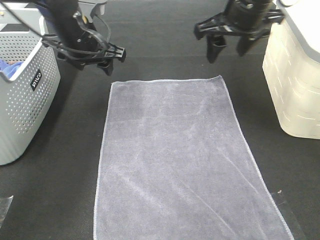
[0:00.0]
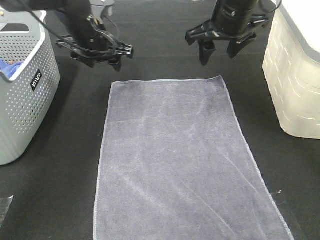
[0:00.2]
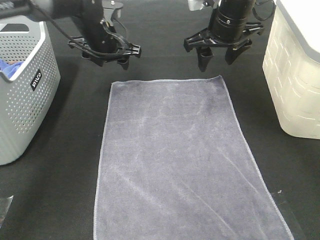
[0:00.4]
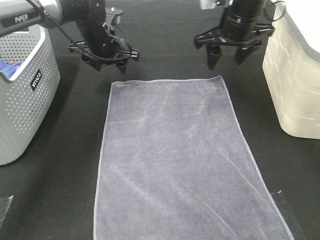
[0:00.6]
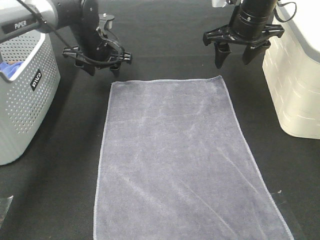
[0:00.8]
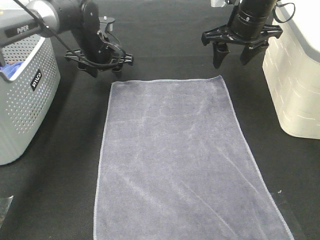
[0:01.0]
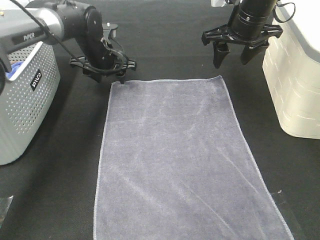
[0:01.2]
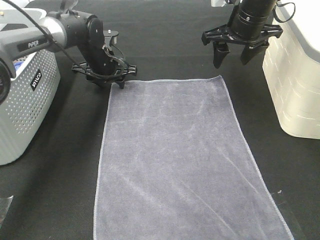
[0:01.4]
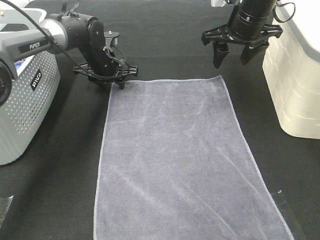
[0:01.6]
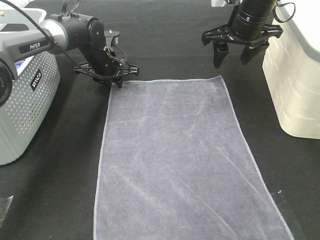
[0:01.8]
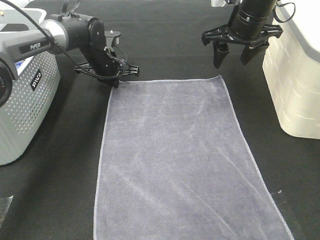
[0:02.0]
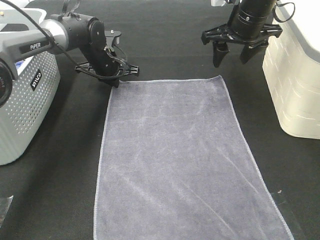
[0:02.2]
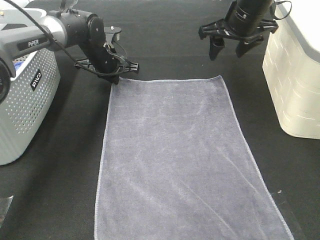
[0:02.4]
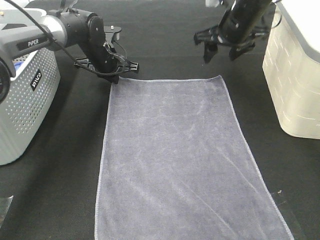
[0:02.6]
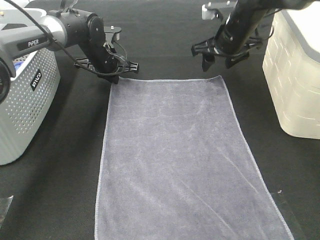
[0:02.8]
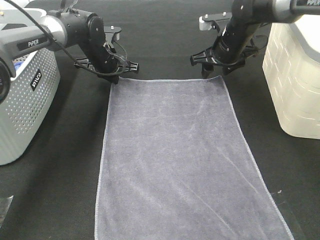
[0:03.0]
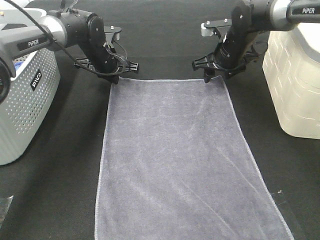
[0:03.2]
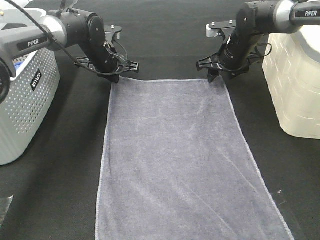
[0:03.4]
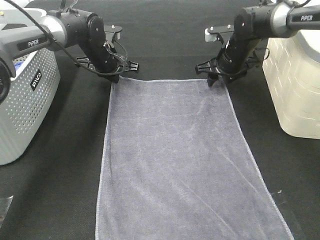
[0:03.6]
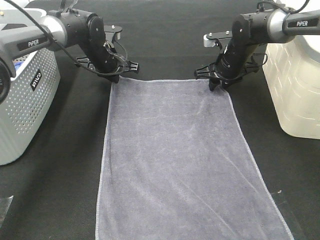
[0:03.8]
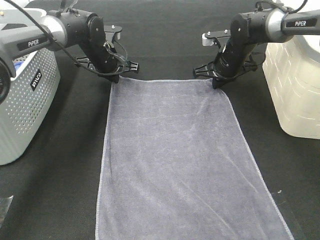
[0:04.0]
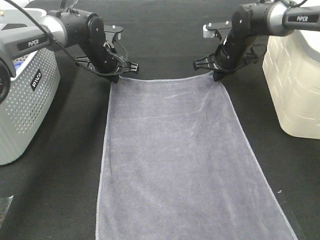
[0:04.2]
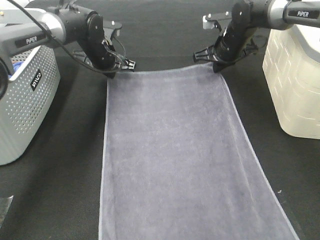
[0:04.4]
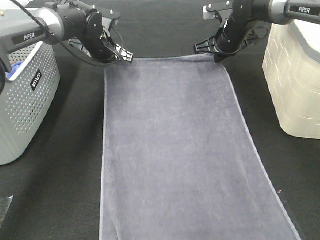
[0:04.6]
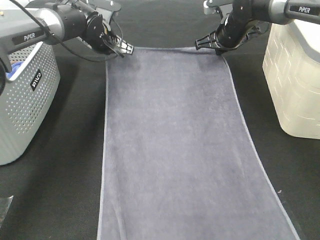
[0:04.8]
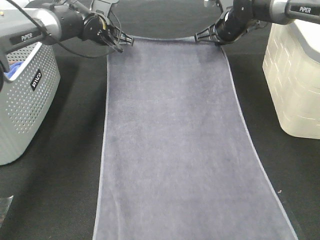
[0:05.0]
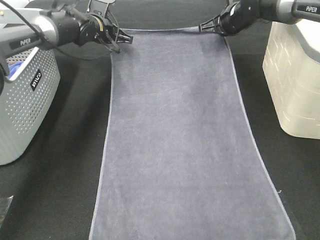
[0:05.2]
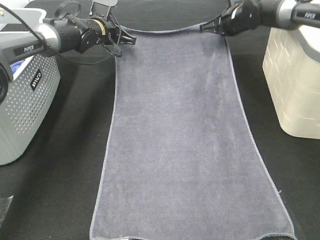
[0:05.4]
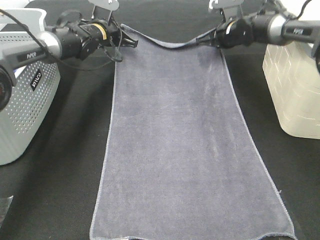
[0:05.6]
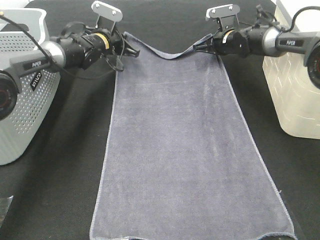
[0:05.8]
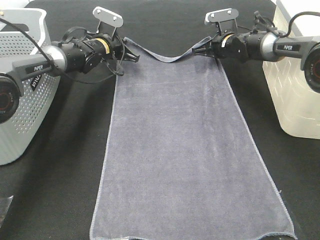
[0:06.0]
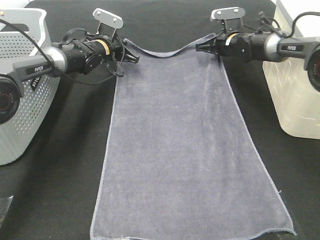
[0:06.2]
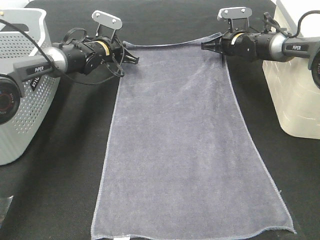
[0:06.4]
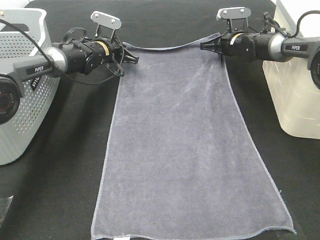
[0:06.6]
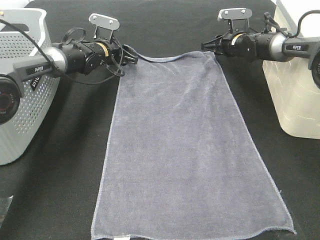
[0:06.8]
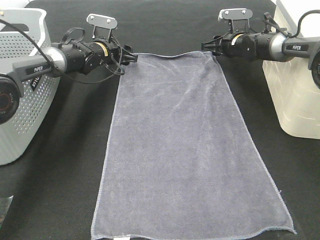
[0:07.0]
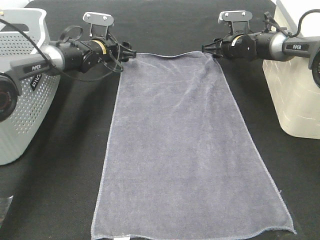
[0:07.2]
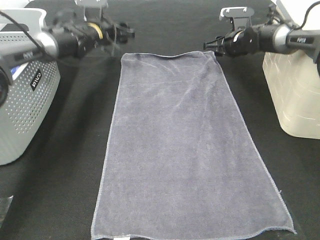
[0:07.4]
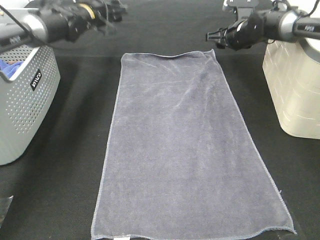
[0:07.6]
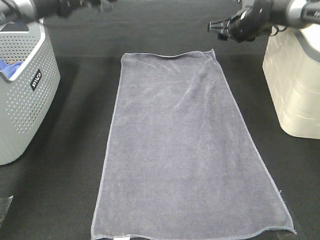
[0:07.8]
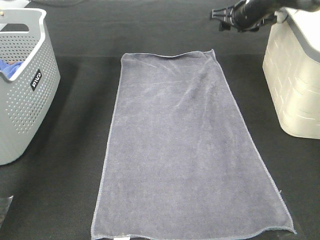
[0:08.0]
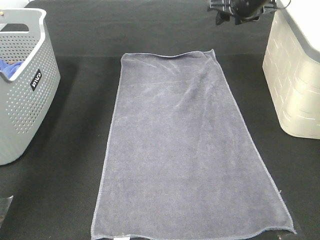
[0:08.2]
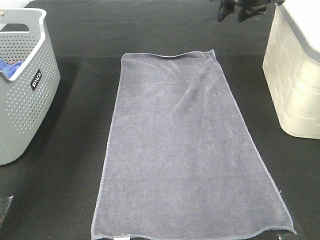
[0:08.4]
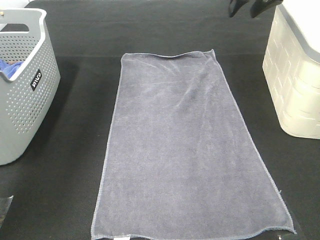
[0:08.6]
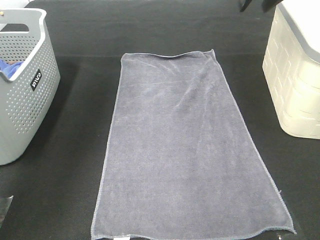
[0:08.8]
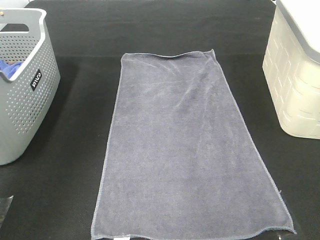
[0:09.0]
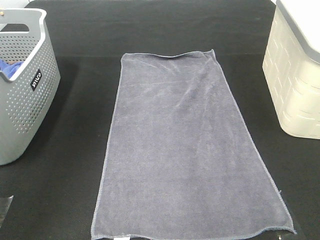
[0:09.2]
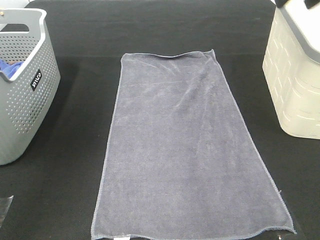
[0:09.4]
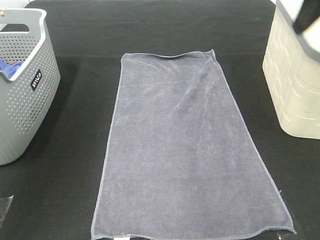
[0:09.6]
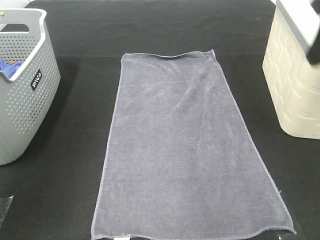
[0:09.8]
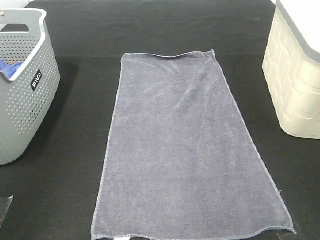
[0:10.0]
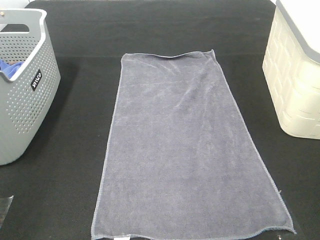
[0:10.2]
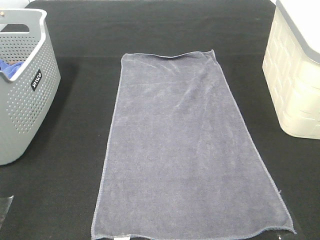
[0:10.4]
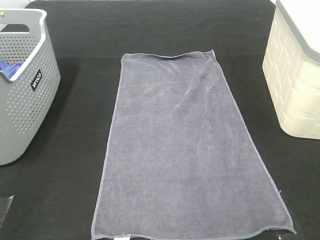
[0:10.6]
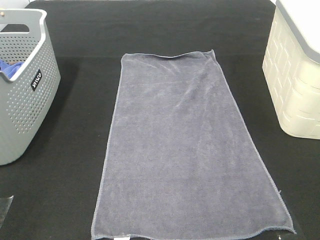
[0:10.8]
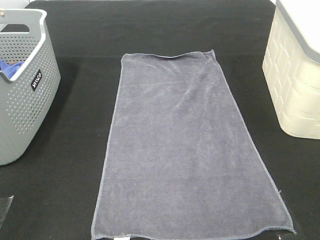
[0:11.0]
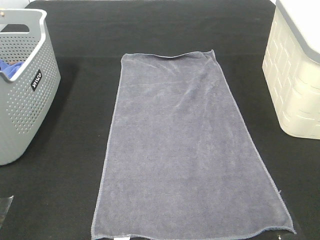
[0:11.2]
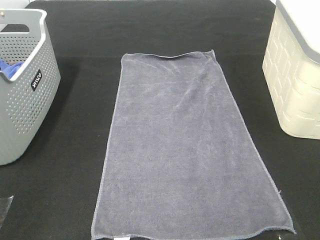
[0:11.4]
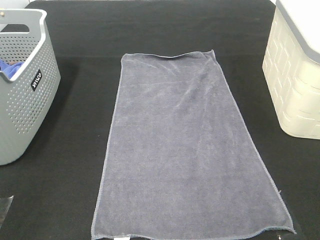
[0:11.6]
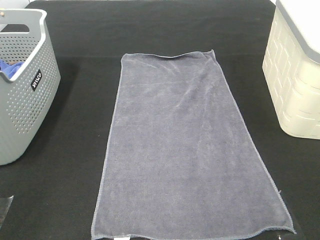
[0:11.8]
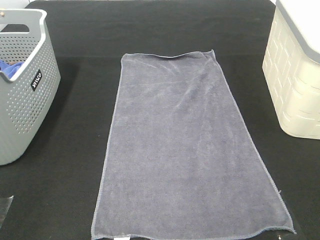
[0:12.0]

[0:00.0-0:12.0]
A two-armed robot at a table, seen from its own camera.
Task of the whole recording: Remove the towel and place it.
0:00.0 to 0:01.6: The right gripper moves about 5 cm. The left gripper shifts roughly 15 cm downward and forward.
0:01.6 to 0:03.0: The left gripper closes up; the right gripper goes about 10 cm downward.
0:03.0 to 0:04.4: The right gripper closes up.
0:04.4 to 0:06.0: The right gripper shifts by roughly 5 cm, while the left gripper moves some 5 cm.
0:06.0 to 0:07.6: The left gripper shifts roughly 10 cm upward, and opens, while the right gripper moves approximately 5 cm, and opens its fingers.
0:07.6 to 0:09.0: The two grippers go roughly 30 cm upward and backward.
0:09.0 to 0:10.4: The grippers both shift backward by some 35 cm.

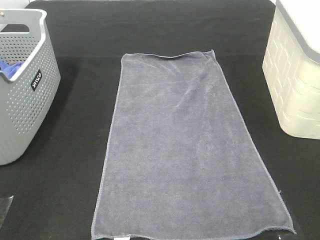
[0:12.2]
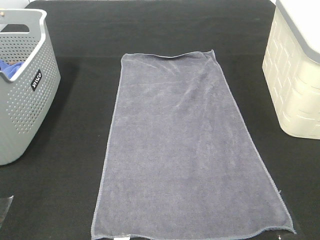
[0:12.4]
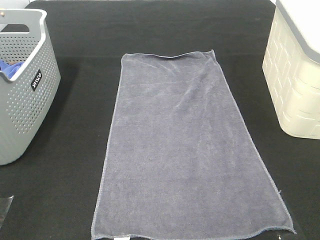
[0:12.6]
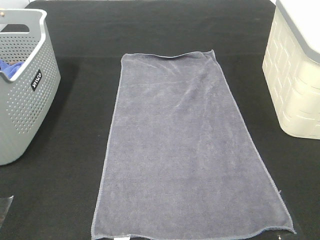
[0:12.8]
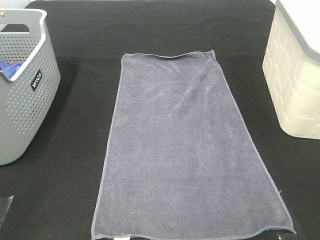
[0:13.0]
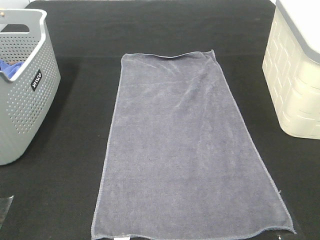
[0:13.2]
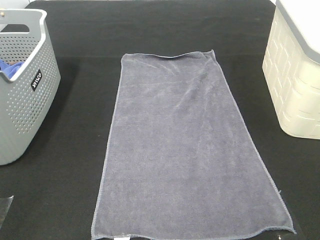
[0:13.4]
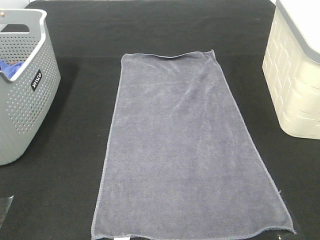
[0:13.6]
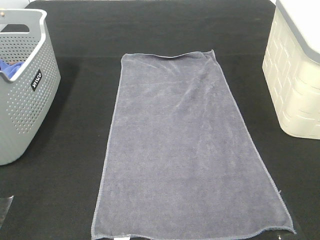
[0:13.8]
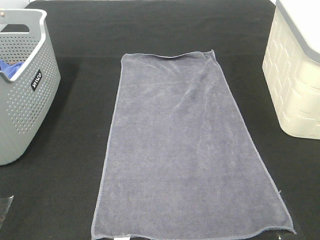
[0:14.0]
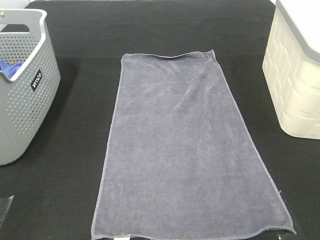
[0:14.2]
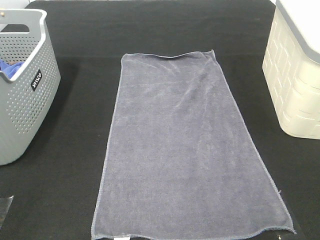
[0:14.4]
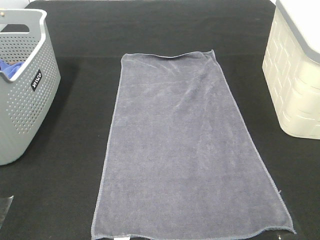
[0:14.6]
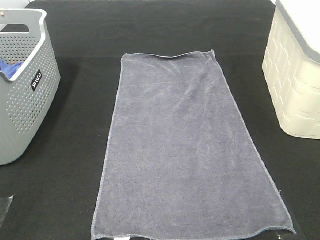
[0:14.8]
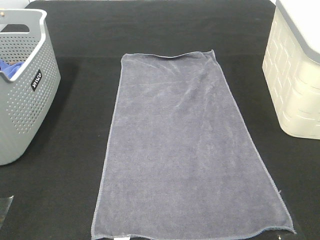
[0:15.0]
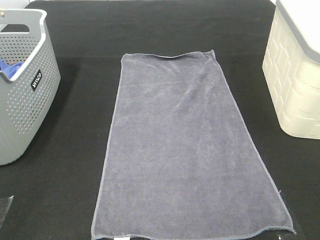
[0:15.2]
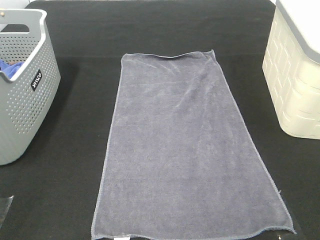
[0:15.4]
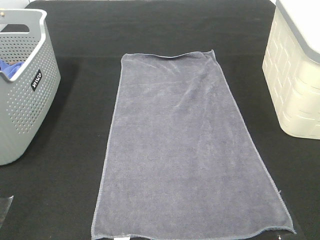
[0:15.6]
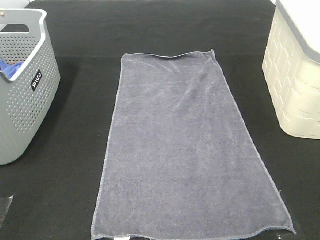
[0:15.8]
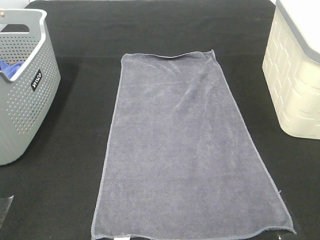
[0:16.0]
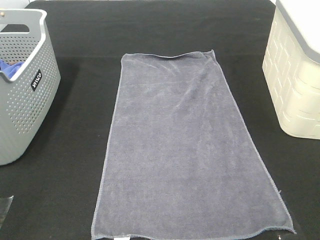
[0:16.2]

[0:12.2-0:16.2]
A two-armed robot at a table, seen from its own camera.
Task of the whole recording: Remove the towel and place it.
0:13.6 to 0:16.2: Both grippers stay about where they are.

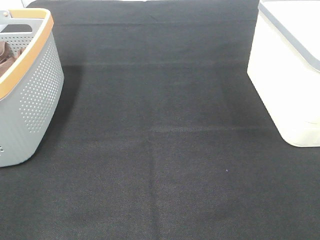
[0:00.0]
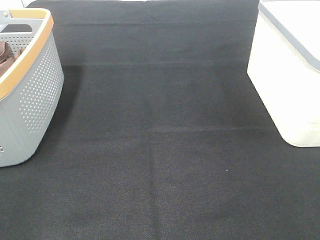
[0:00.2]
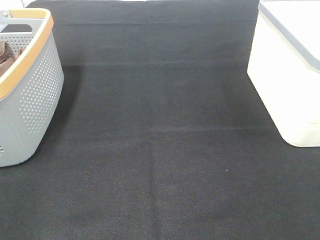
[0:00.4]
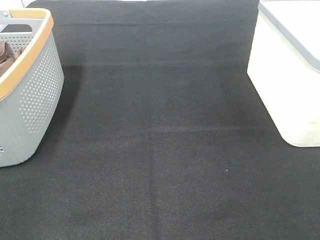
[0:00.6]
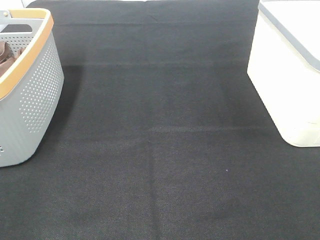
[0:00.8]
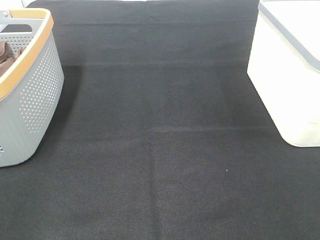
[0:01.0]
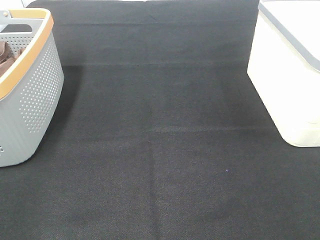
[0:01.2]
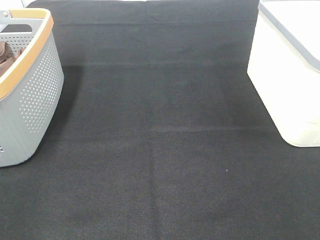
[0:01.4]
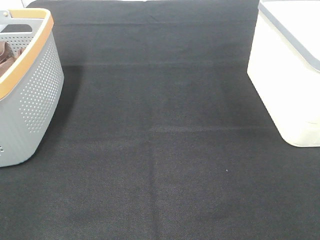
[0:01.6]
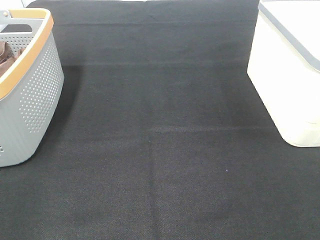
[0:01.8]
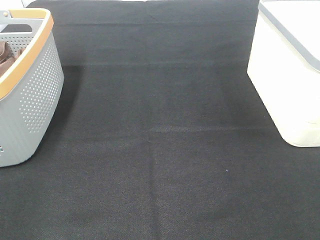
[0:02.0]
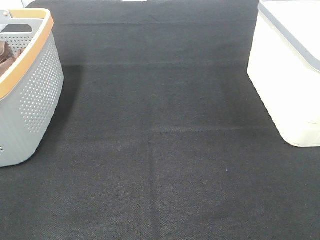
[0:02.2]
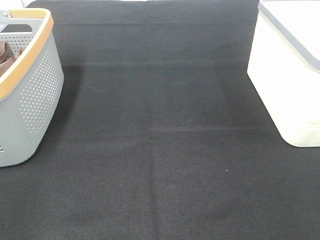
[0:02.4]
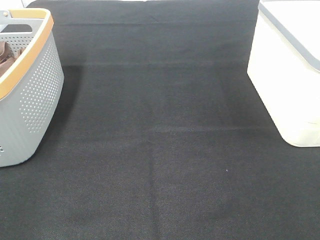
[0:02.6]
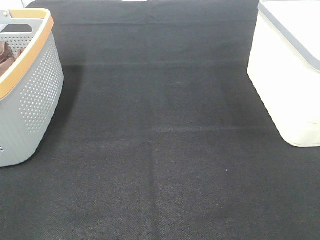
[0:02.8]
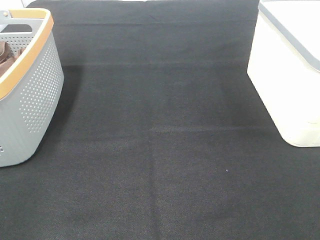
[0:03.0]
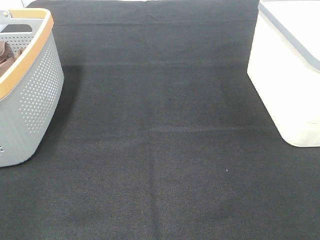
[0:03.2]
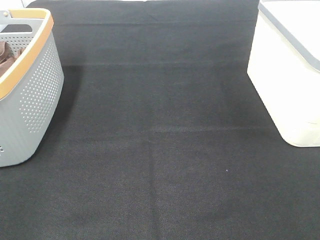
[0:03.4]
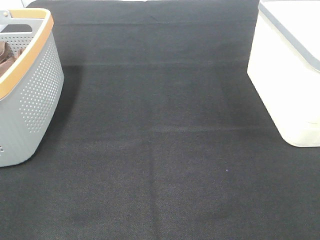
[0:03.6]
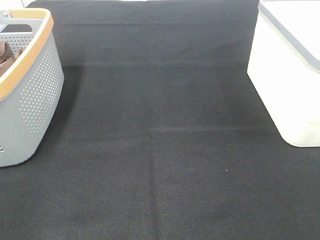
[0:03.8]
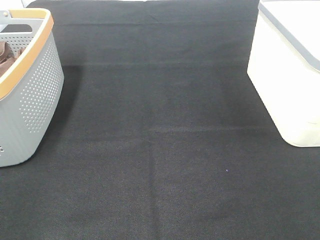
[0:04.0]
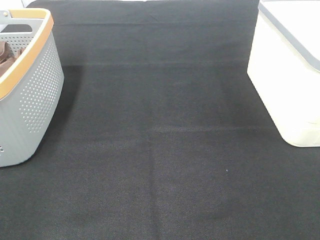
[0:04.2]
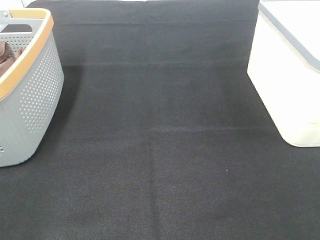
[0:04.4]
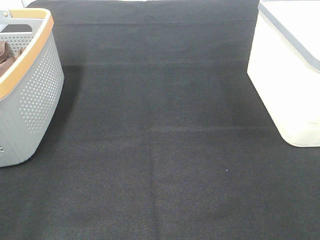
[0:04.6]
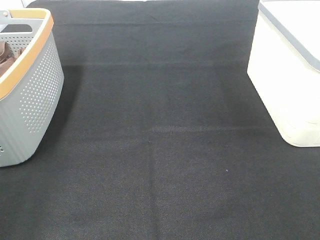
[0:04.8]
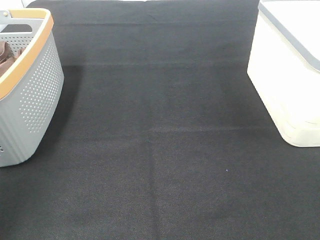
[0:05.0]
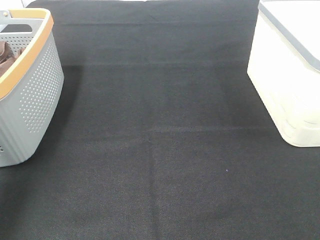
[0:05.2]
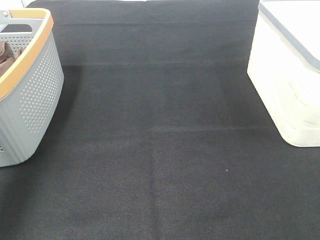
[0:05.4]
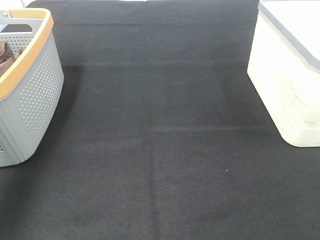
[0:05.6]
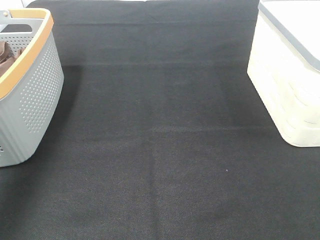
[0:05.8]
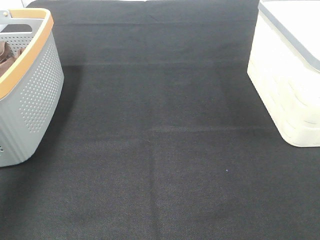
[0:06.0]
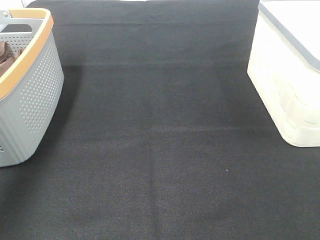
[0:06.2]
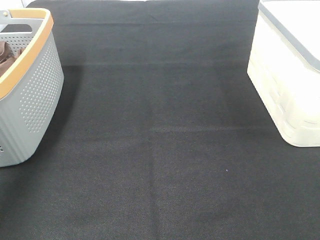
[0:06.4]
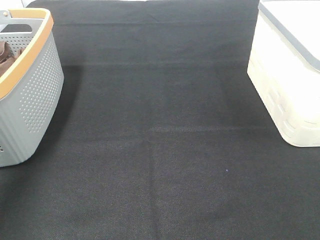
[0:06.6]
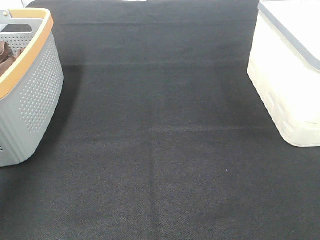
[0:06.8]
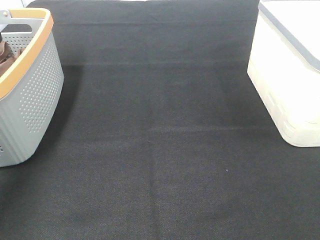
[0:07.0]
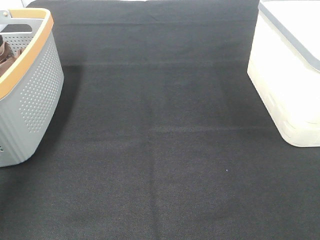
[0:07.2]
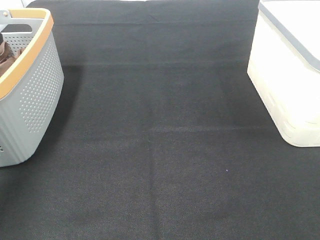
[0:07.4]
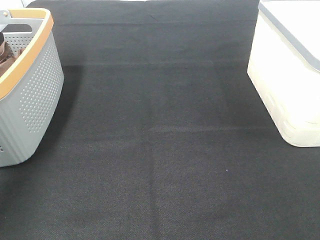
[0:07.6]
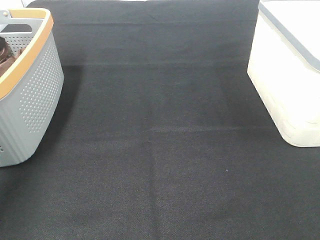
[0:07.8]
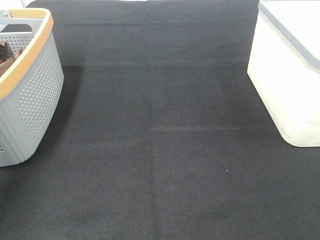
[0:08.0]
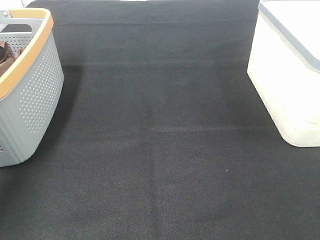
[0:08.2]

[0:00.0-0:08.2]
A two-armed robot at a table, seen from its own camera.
Task of the whole recording: Remove the towel and place it.
0:00.0 to 0:03.2: Both grippers stay put.
0:03.2 to 0:05.0: The left gripper goes approximately 20 cm forward and upward.
